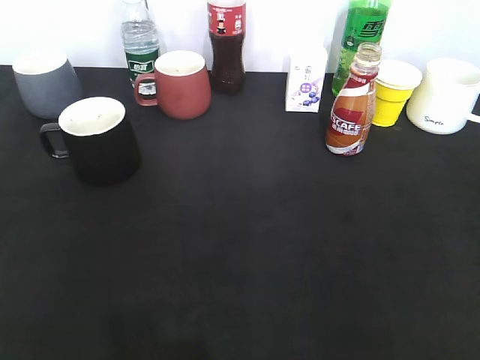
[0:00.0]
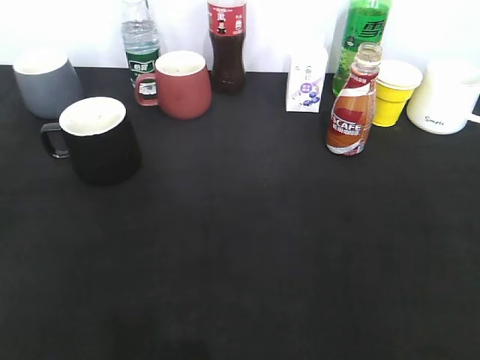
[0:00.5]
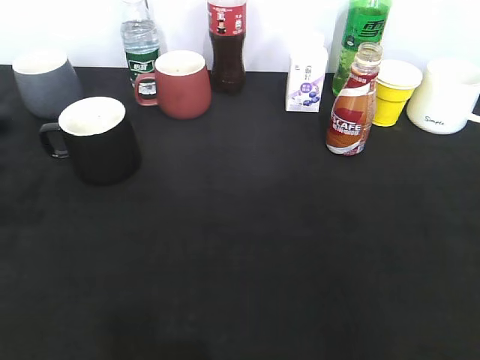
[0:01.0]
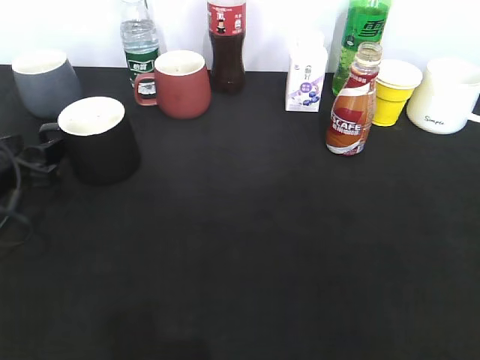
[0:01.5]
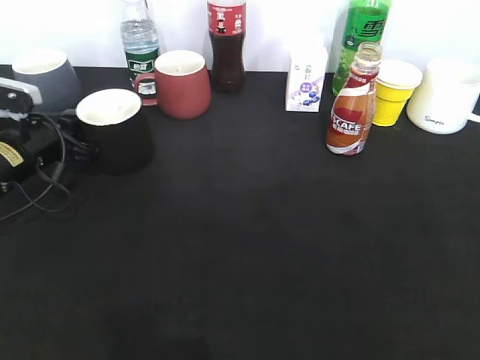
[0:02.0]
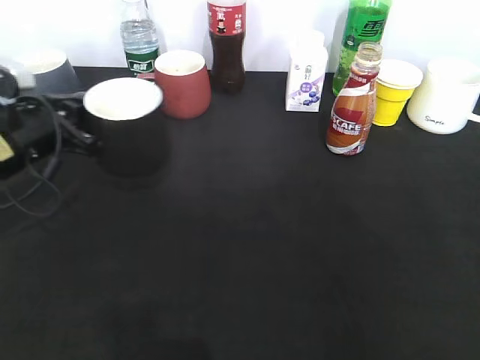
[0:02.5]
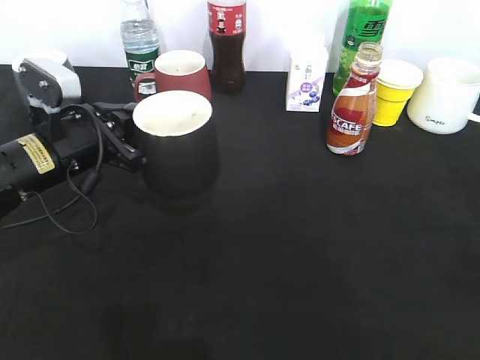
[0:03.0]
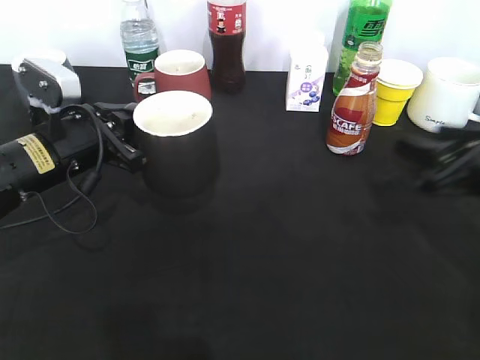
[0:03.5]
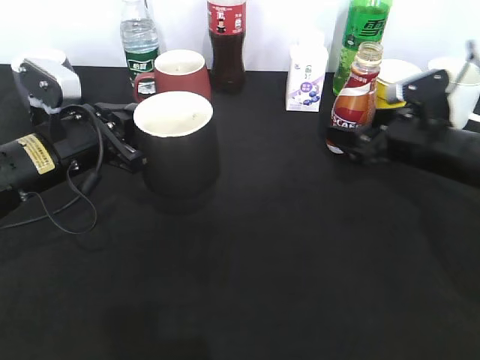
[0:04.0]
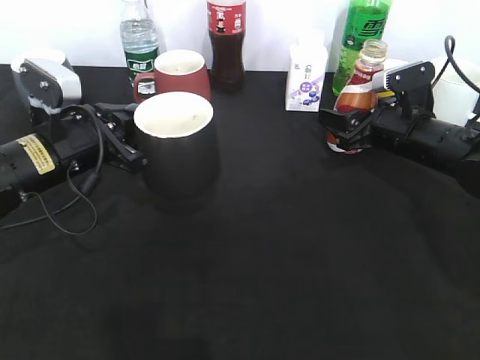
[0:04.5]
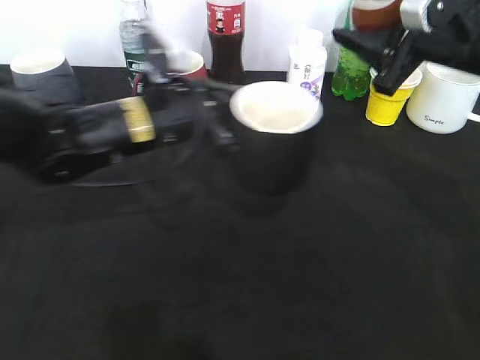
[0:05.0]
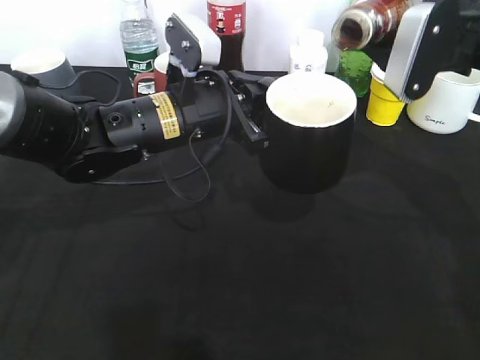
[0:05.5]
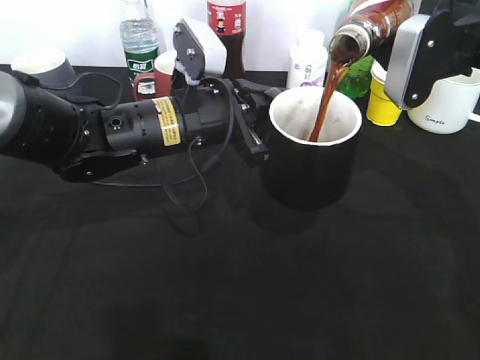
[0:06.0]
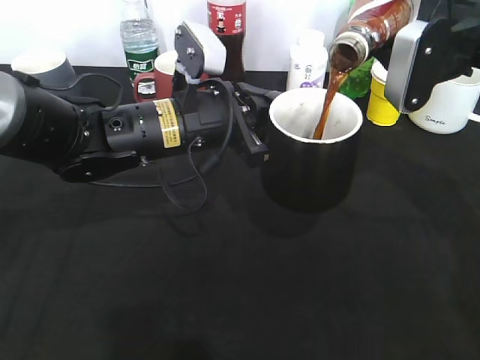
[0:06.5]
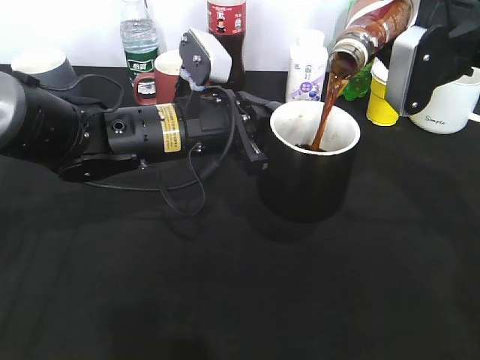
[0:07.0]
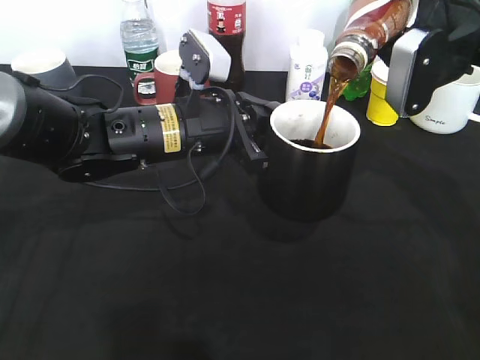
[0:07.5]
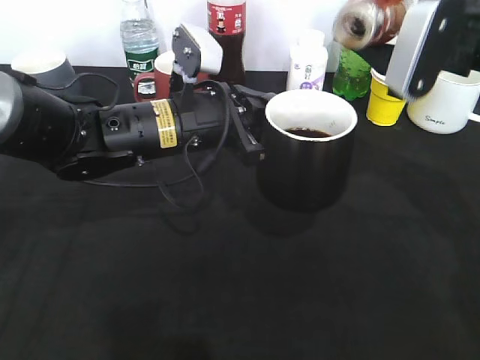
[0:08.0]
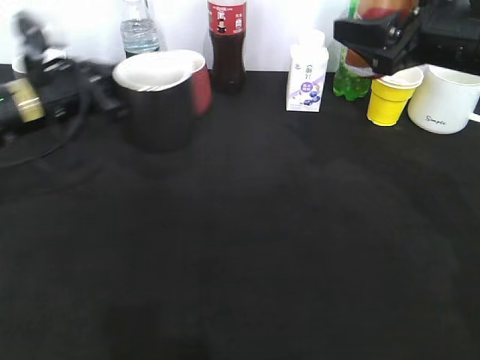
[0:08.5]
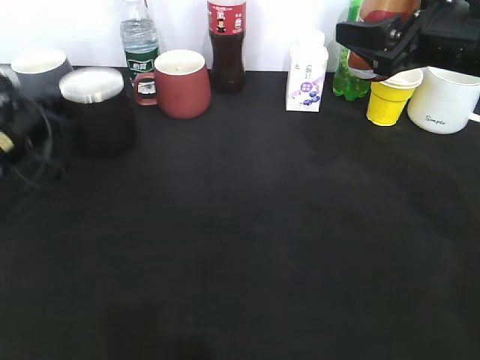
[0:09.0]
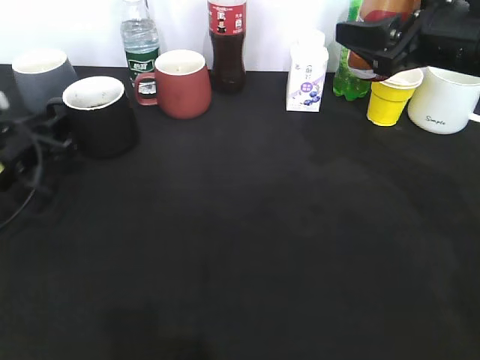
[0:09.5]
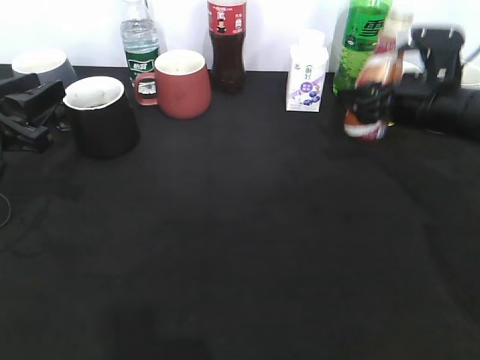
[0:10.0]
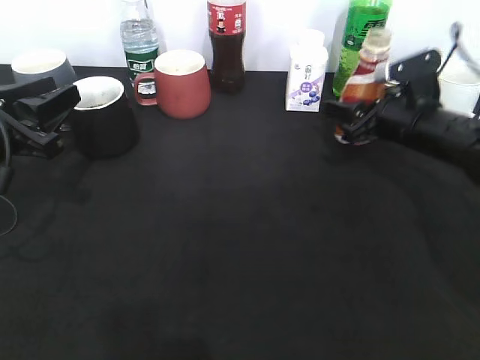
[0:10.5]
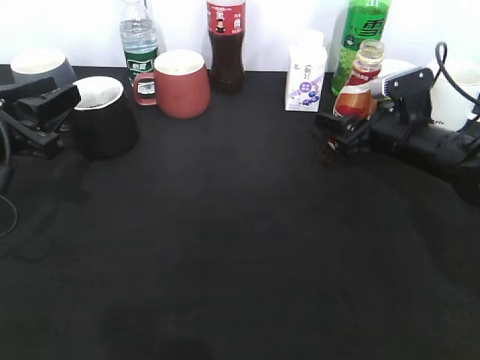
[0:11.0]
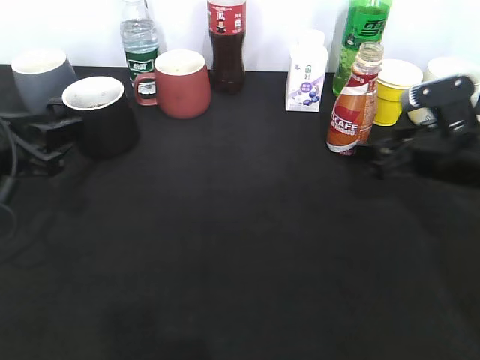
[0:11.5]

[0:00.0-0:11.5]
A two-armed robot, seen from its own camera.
Step, 0:00.5 to 0:02.0: Grasp the black cup with left gripper.
Step, 0:03.0 to 0:04.0: Grasp the bottle with coffee with right gripper.
Step, 0:04.5 to 0:08.0: Pour the coffee from bottle to cup with right gripper.
Step, 0:08.5 to 0:09.0: Place the black cup on the table with left gripper.
Step, 0:10.0 to 0:11.0: Place the coffee bottle on the table with right gripper.
0:00.0 to 0:02.0: The left gripper travels forward and downward by approximately 40 cm, and closes its fingers.
0:02.0 to 0:04.0: The right gripper moves forward and downward, some 40 cm, and opens its fingers. Meanwhile the left gripper goes roughly 10 cm to the right.
0:04.0 to 0:06.0: The left gripper moves to the right, roughly 15 cm; the right gripper travels upward by roughly 15 cm, and closes its fingers.
0:06.0 to 0:07.5: The grippers stay close to where they were, moving slightly.
0:07.5 to 0:09.5: The left gripper travels to the left by approximately 25 cm, and opens up.
0:09.5 to 0:11.5: The left gripper goes roughly 10 cm backward and upward. The right gripper is displaced downward by about 10 cm, and opens up.

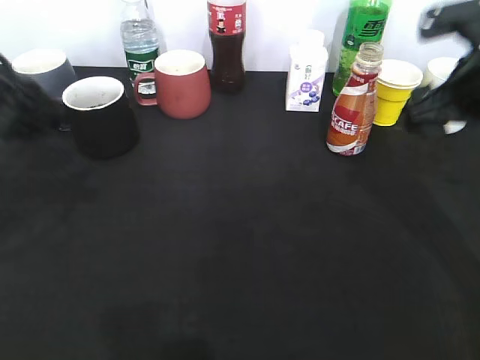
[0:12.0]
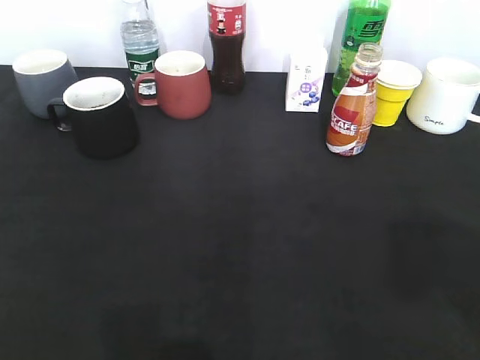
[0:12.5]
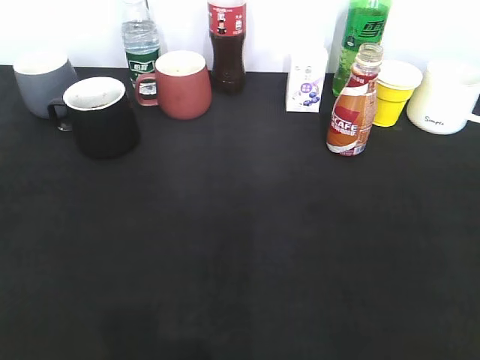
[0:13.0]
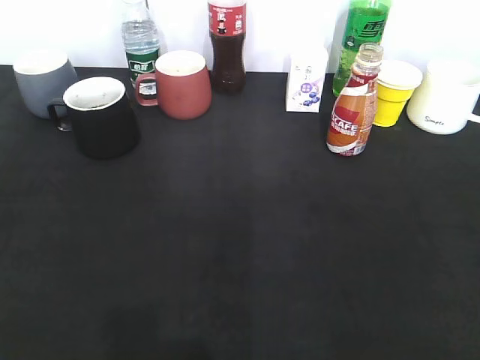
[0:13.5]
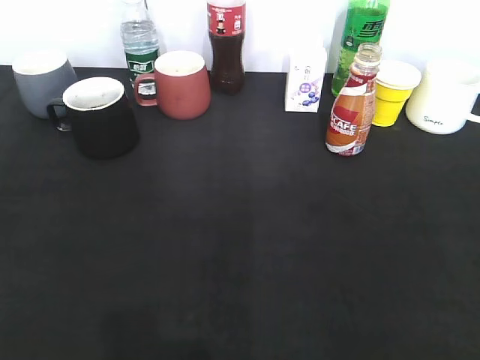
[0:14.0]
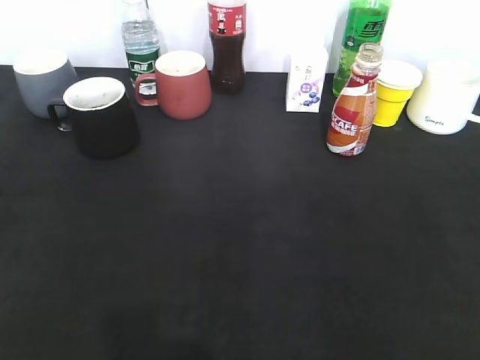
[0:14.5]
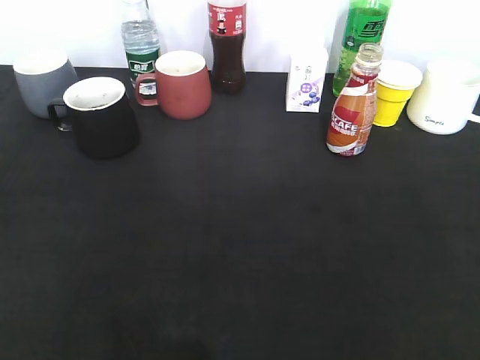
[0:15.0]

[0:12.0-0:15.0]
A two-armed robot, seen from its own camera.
0:12.0 to 0:13.5: The left gripper is displaced backward and to the left by approximately 25 cm. Meanwhile the right gripper moves backward, about 30 cm.

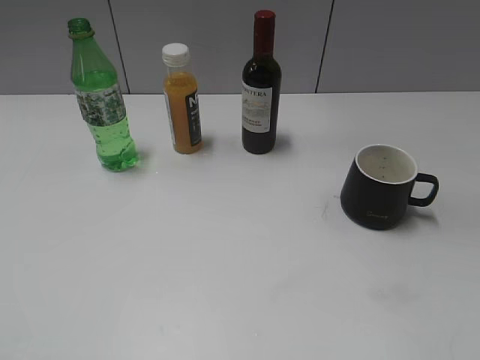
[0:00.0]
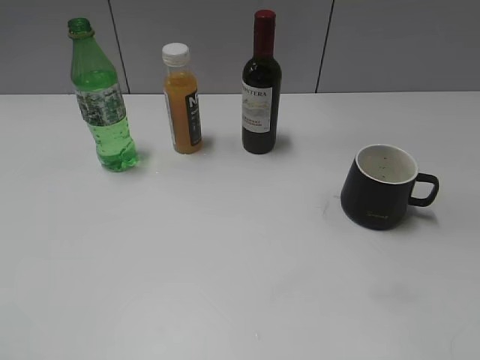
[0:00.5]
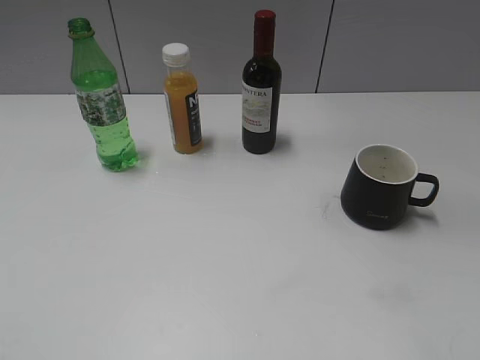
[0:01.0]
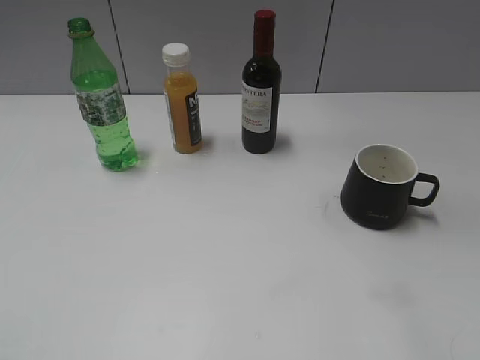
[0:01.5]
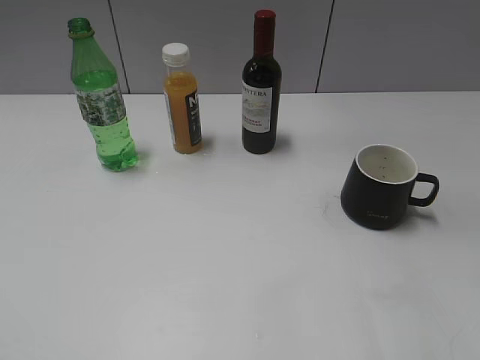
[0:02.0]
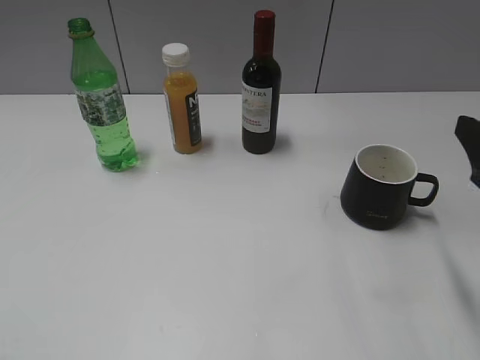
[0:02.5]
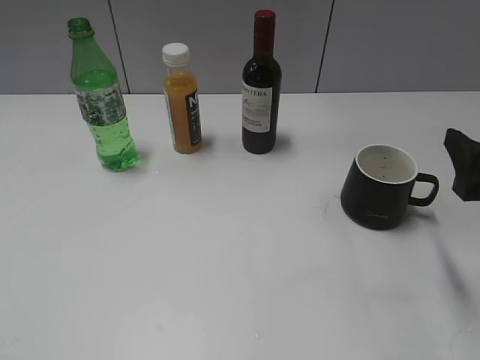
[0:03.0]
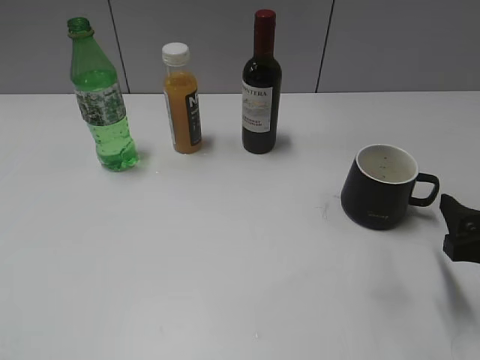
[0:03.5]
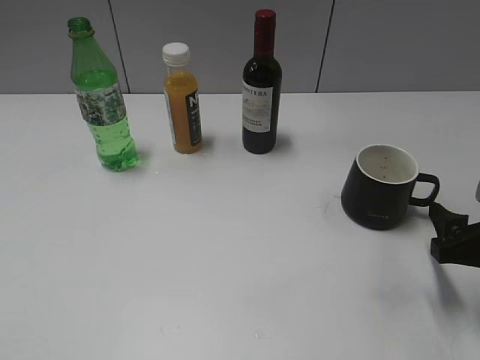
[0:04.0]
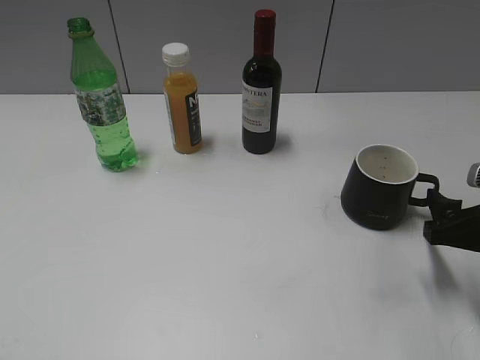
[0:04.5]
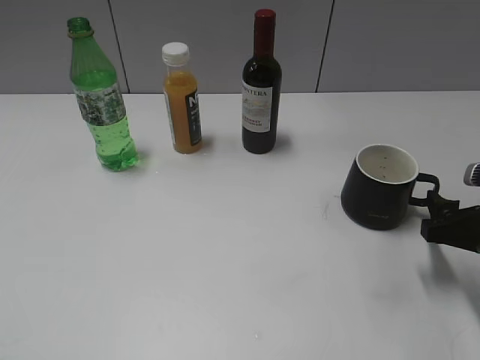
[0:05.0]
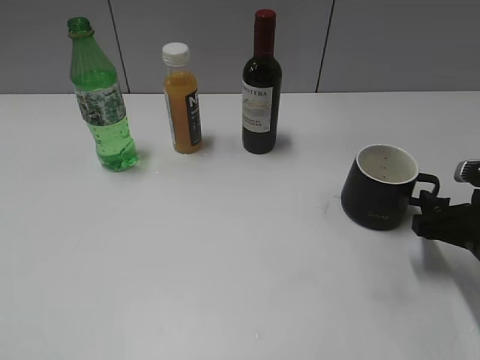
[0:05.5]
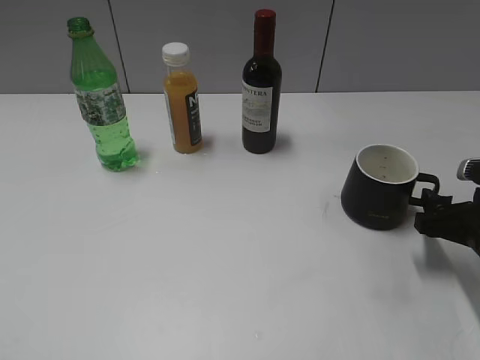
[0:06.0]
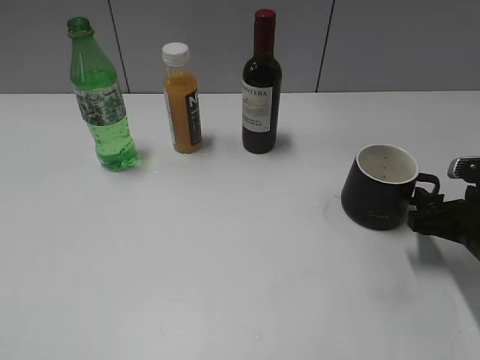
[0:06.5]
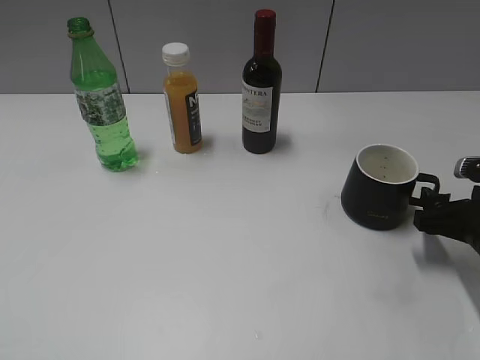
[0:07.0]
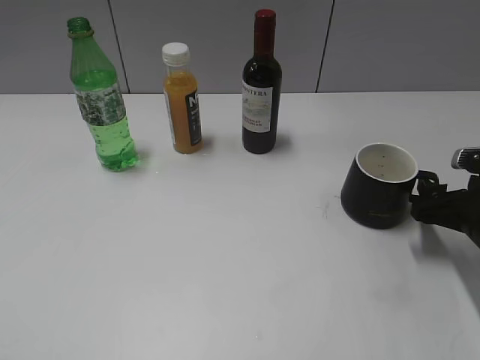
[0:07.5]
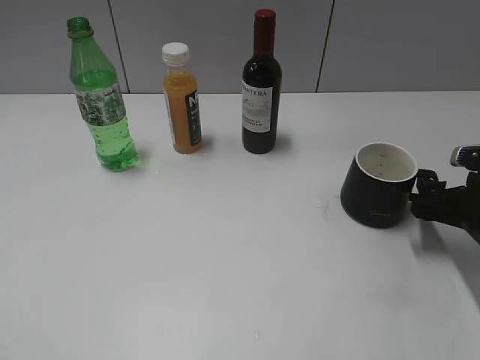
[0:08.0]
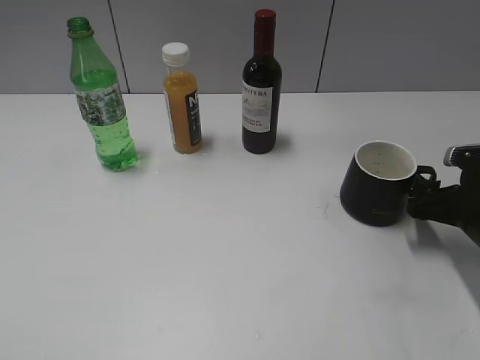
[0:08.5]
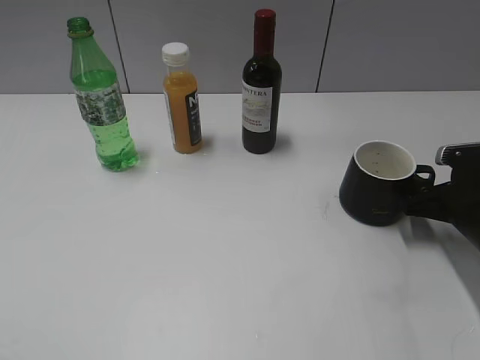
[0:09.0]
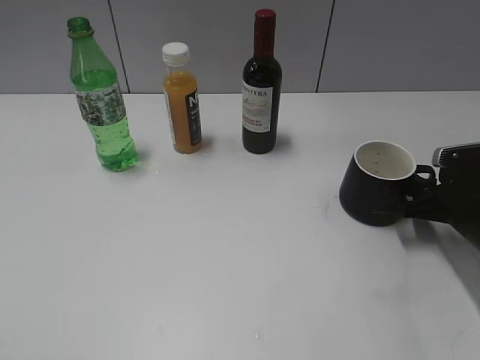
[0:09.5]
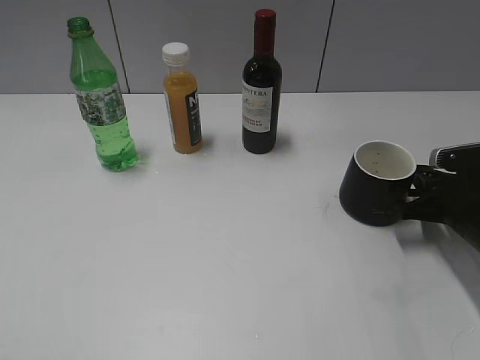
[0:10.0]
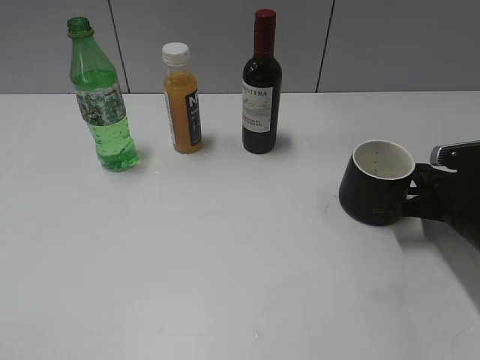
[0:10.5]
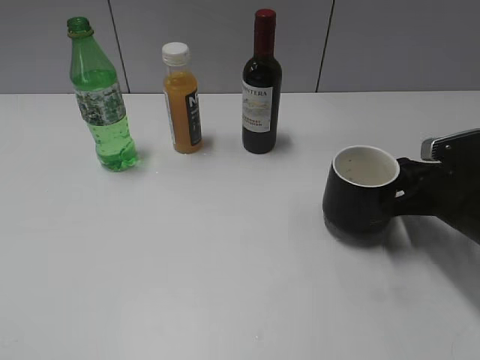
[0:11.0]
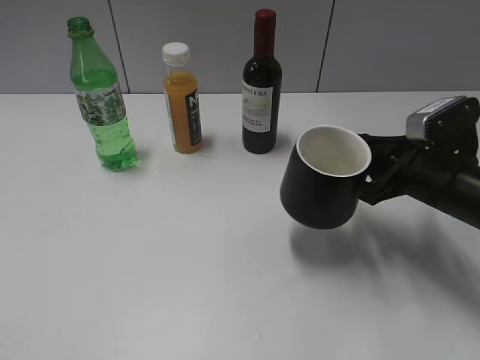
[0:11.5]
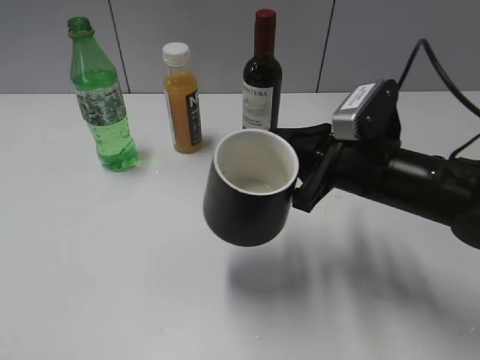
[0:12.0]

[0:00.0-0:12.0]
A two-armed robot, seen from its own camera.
Step, 0:01.0 to 0:10.0: Grasp the black cup with right gripper.
0:02.0 to 0:04.0: The right gripper shifts some 15 cm downward and forward.
0:04.0 to 0:06.0: The right gripper changes place by about 5 cm.
0:06.0 to 0:08.0: There are only small adjustments of the grippers.
0:08.0 to 0:10.0: The right gripper closes.
0:10.0 to 0:12.0: The right gripper travels to the left and upward by some 15 cm.
